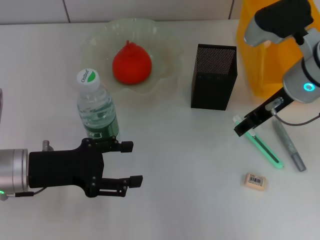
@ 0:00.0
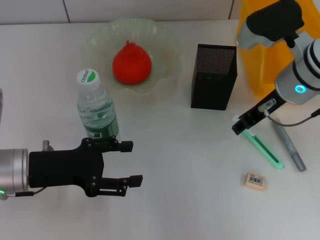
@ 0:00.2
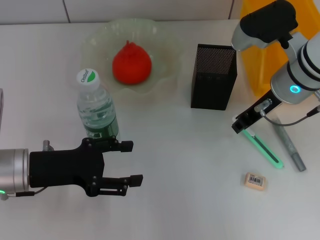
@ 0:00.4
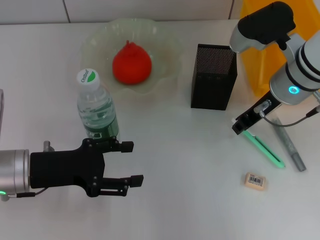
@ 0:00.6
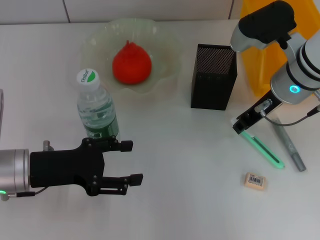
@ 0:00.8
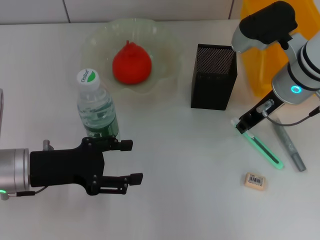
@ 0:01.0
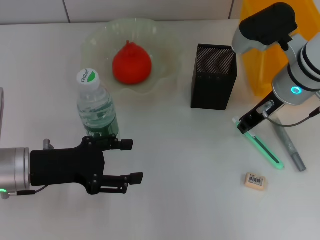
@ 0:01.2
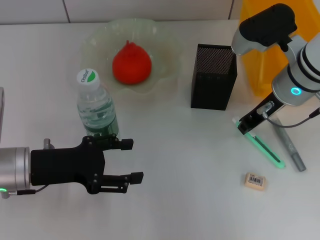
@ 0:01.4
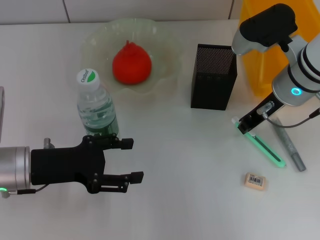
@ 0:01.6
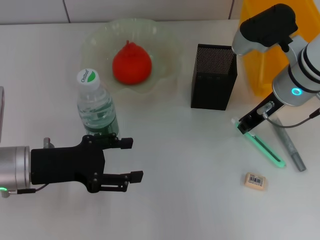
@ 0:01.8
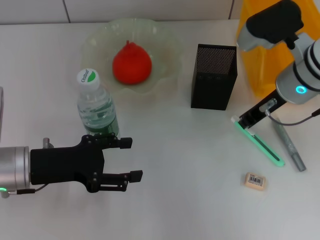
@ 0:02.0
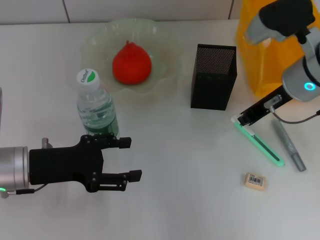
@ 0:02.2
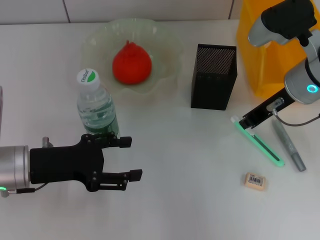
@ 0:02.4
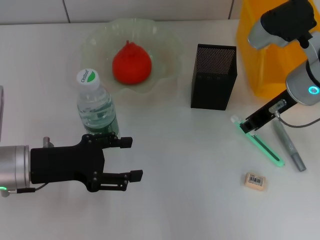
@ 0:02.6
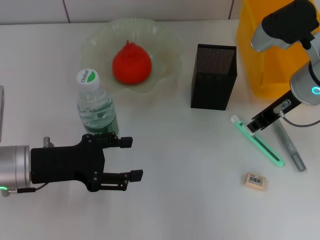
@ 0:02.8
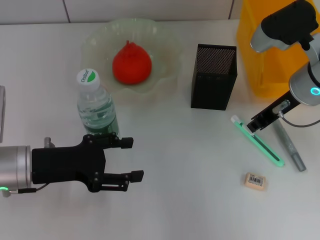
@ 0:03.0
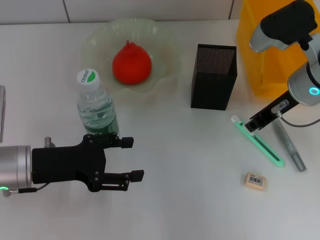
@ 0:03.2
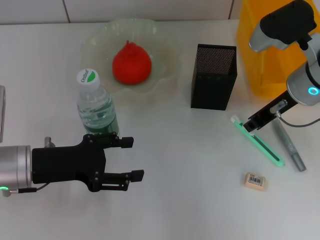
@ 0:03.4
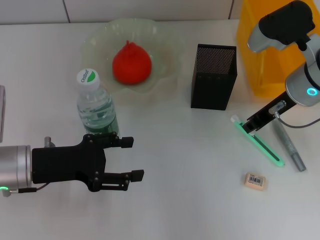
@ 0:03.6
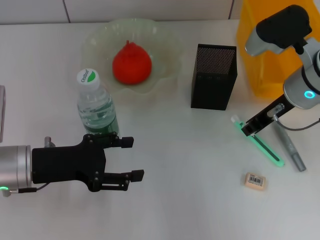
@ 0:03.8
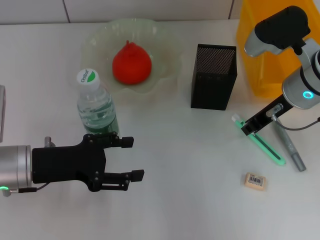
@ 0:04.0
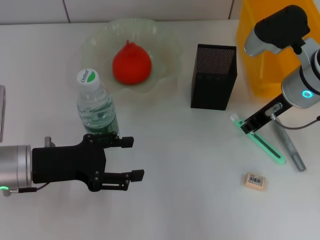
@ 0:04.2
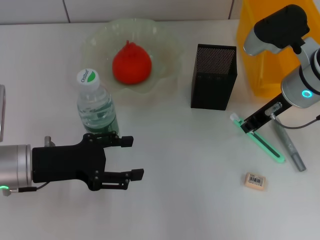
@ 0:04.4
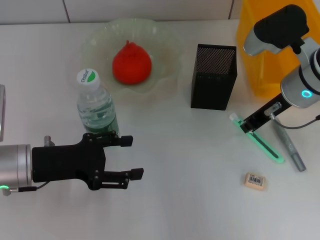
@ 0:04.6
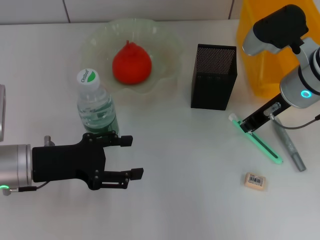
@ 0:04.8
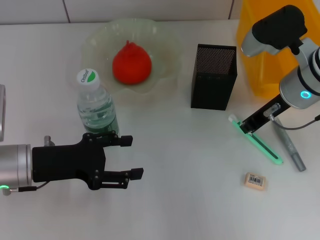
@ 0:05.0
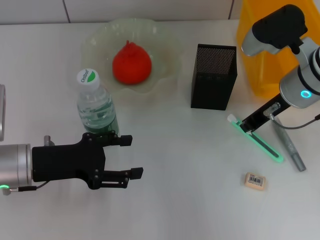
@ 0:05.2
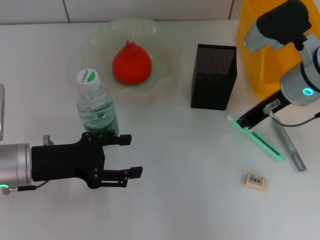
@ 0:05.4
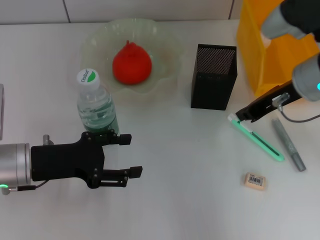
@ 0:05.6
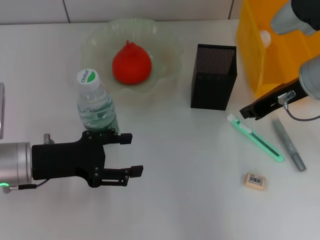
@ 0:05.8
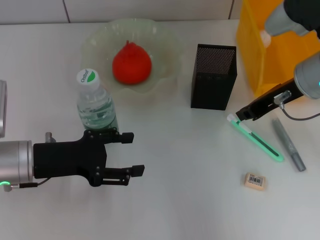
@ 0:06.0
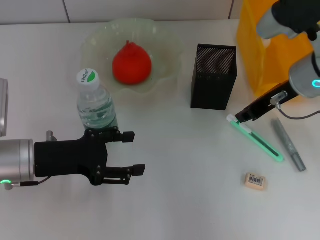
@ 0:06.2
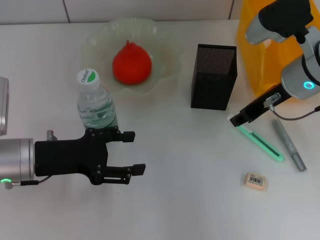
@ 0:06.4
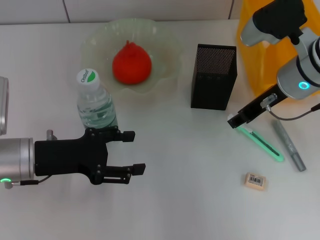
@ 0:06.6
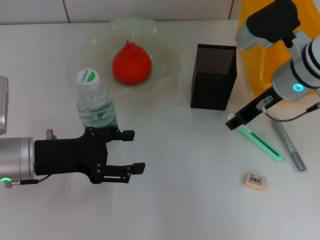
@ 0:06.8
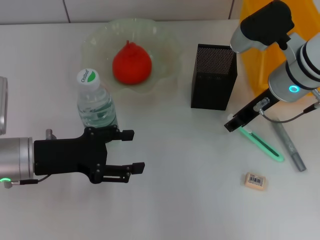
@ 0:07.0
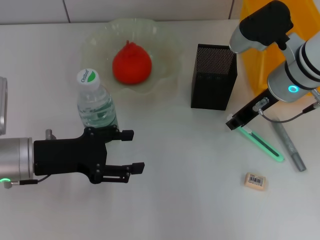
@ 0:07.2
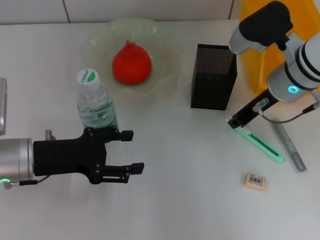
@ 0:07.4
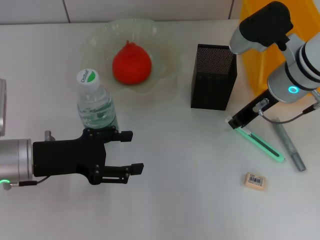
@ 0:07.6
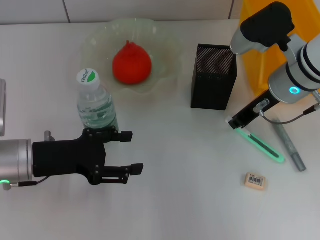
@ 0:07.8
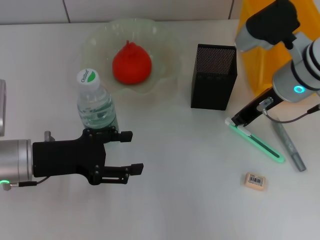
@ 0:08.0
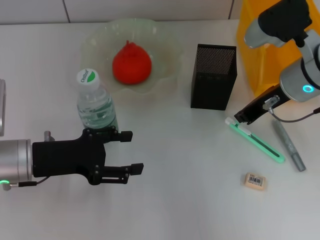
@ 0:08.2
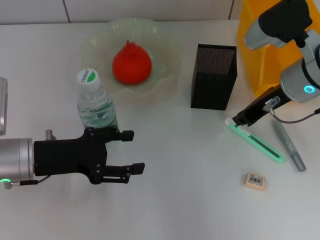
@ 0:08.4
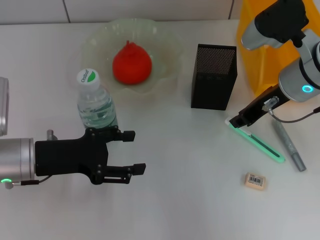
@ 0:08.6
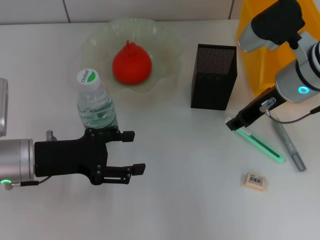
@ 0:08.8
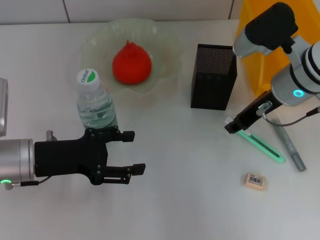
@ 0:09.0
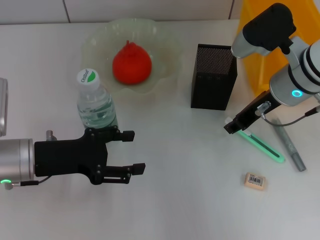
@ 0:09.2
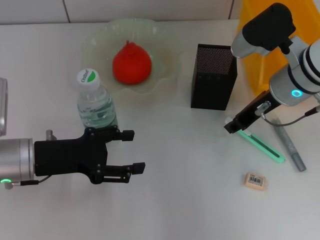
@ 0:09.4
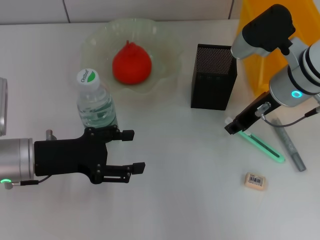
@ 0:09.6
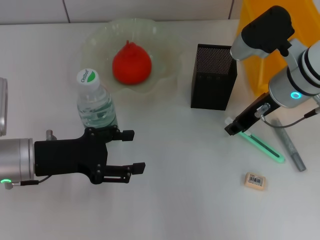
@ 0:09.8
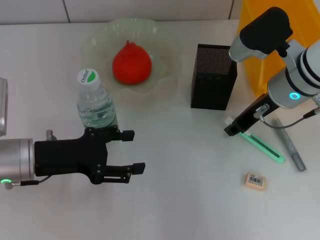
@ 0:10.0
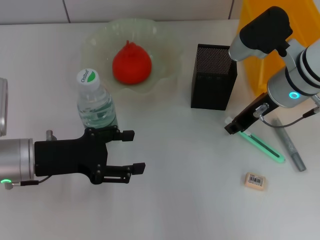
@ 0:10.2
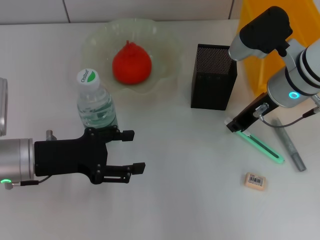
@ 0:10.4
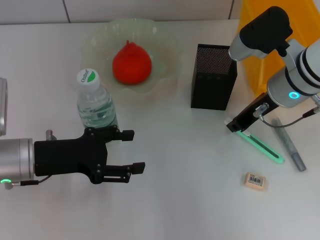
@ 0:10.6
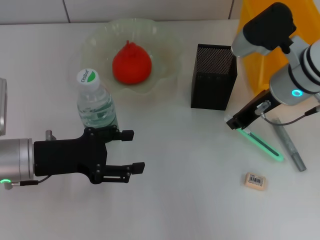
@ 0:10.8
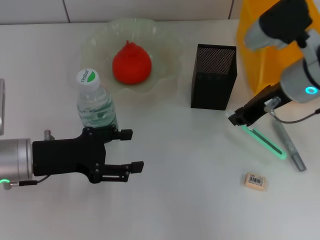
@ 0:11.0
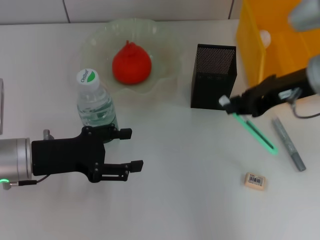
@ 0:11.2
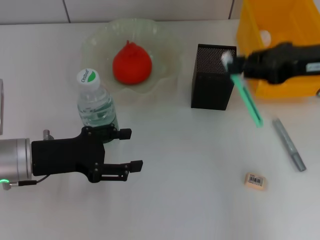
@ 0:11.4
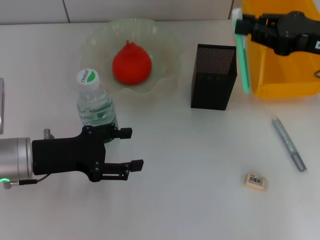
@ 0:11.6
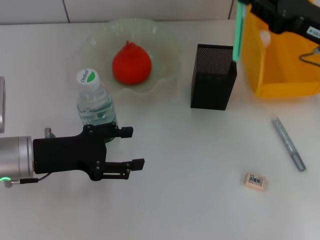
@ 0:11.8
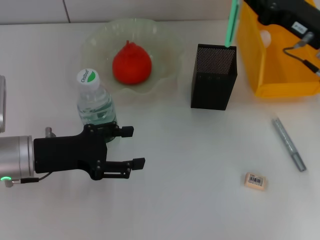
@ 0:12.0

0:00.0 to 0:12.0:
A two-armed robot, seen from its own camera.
Step, 0:00.0 to 0:10.4: Grab the blue utility knife with the right hand.
0:00.0 to 0:01.6: The right gripper closes.
0:01.6 to 0:03.0: There are only small adjustments of the grippers.
0:03.0 to 0:04.4: Both grippers stay put.
0:04.4 to 0:06.0: There are only small adjustments of the grippers.
0:06.0 to 0:07.6: The right gripper opens, then closes again.
0:07.6 to 0:09.0: The right gripper opens up.
0:09.0 to 0:10.4: Neither gripper changes place.
0:10.4 to 0:12.0: The right gripper shifts roughly 5 cm to the right.

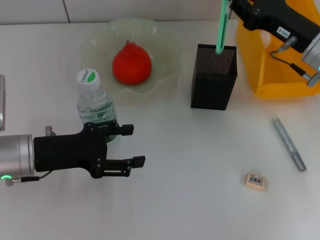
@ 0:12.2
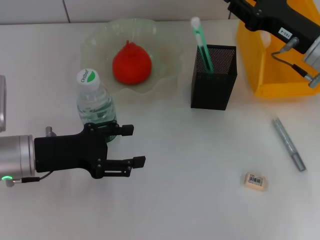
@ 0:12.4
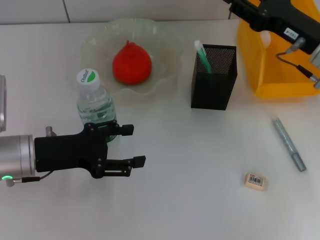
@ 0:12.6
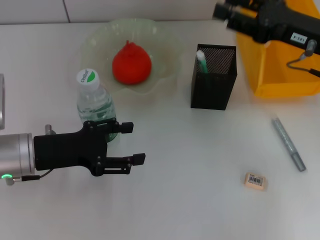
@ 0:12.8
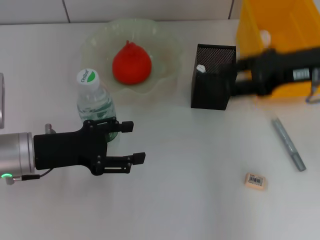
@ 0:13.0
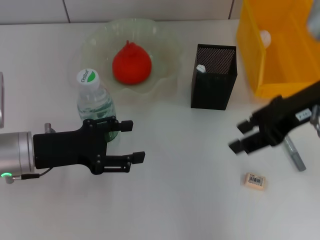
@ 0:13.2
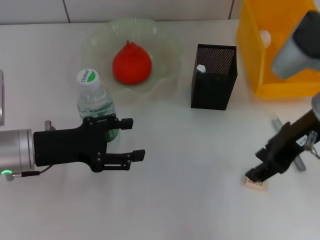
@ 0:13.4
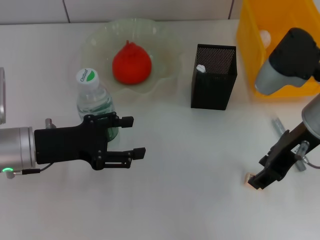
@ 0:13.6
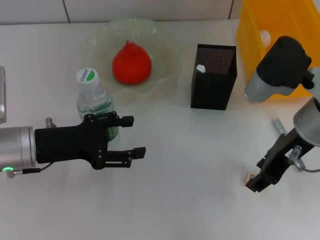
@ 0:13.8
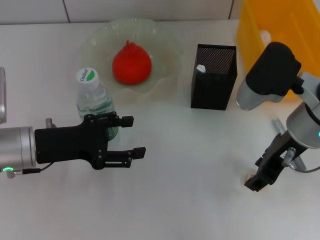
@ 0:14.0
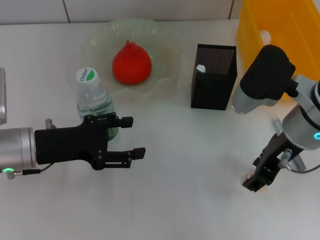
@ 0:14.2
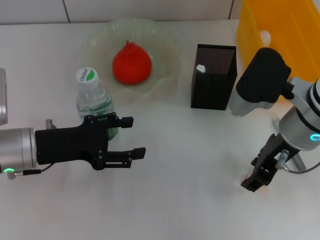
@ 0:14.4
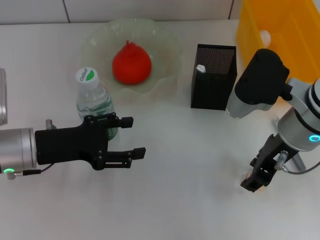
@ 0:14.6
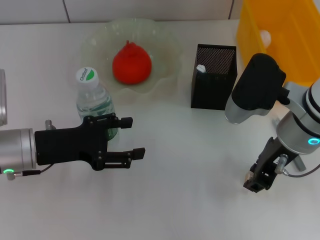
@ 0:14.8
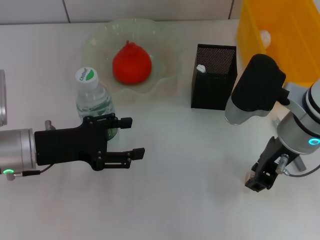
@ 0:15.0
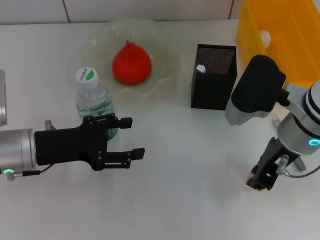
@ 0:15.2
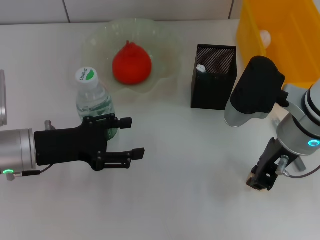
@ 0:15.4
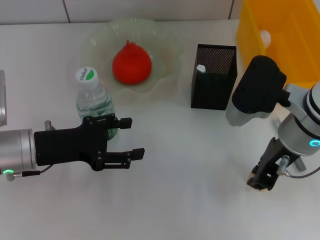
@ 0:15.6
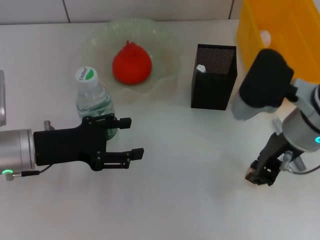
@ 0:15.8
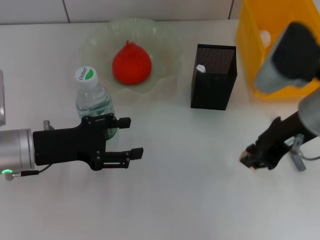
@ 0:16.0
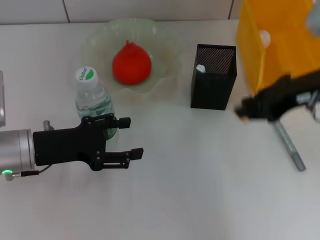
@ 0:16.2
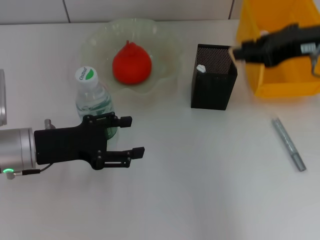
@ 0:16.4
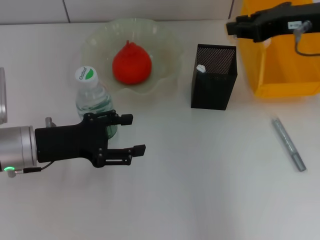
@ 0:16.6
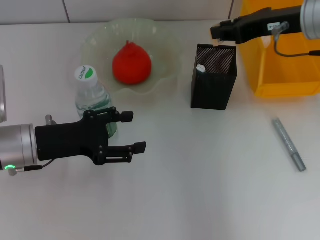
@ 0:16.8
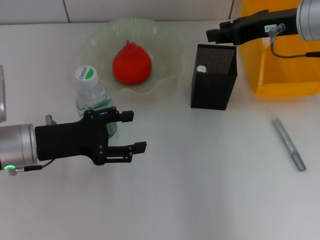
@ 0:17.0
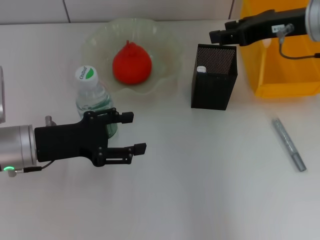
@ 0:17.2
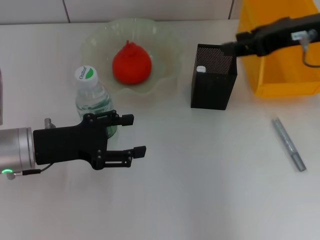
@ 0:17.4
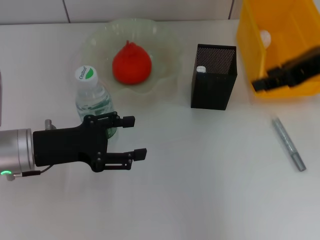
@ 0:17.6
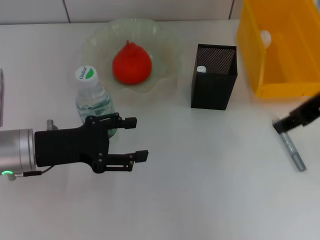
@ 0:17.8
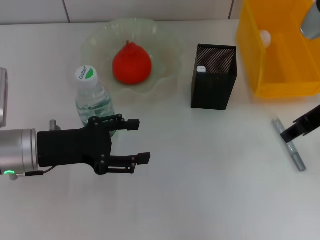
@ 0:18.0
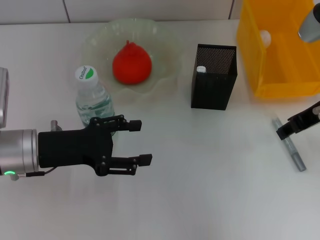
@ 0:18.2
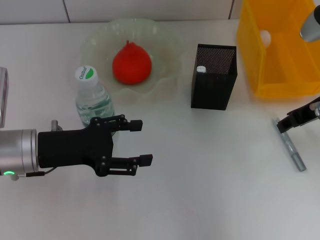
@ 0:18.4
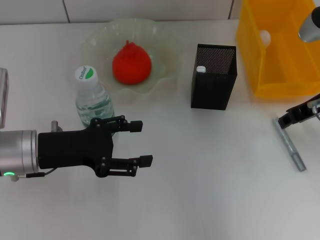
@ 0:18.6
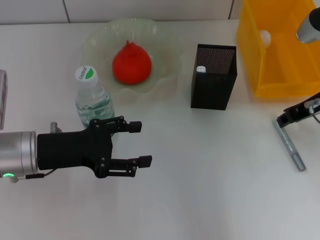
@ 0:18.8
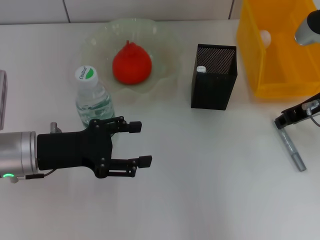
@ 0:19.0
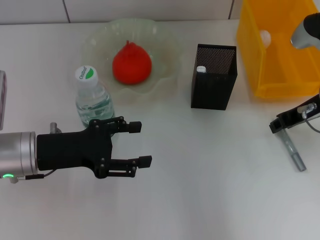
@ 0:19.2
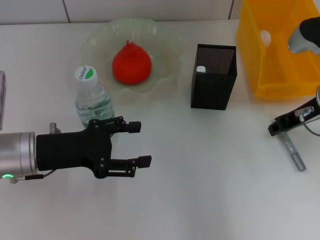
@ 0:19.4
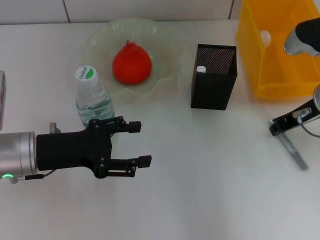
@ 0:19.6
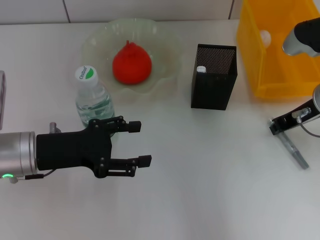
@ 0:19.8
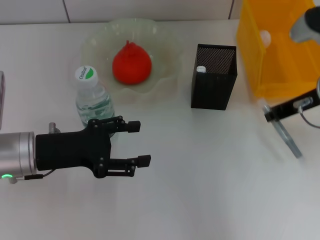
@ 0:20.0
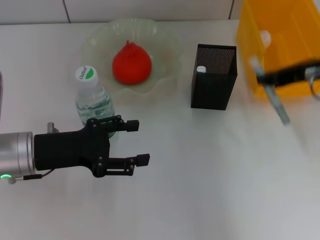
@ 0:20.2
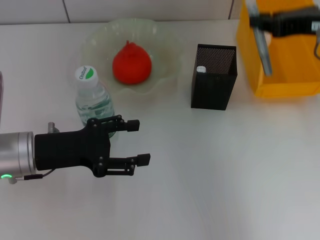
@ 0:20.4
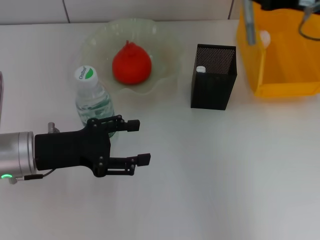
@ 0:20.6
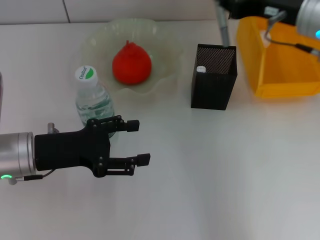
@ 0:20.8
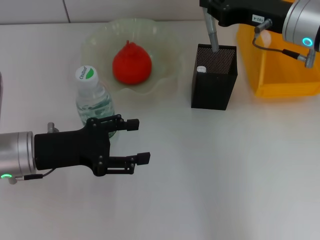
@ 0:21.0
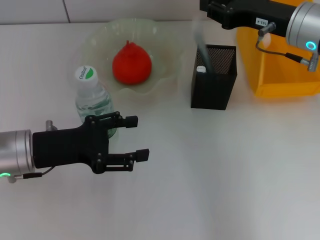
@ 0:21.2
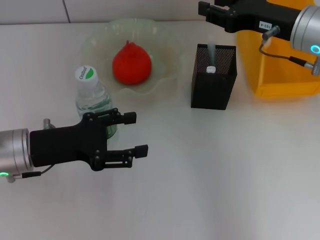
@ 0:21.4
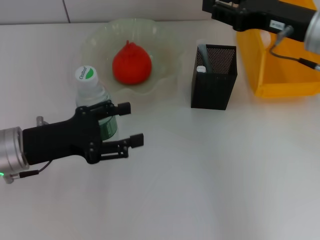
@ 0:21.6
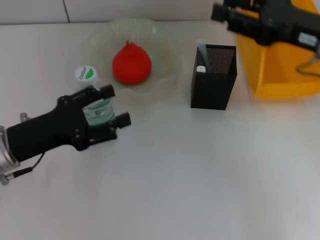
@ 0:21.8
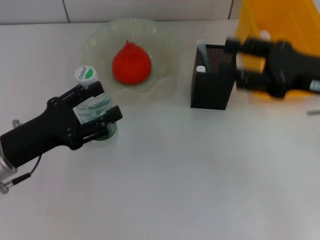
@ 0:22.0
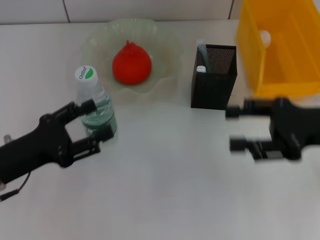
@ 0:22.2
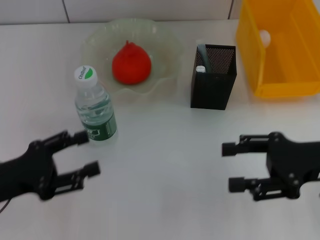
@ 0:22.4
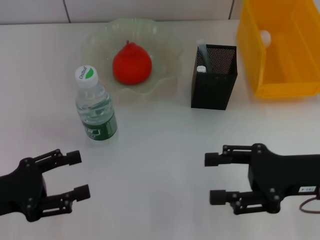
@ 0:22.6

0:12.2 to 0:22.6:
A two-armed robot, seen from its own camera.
Step, 0:12.6 to 0:15.2: Grab the eraser with the right hand.
Step, 0:15.6 to 0:17.0: Put the eraser into the pen holder with the right hand.
Step, 0:17.2 to 0:19.6: Grab the gray glue with the right hand.
Step, 0:19.8 to 0:21.4: Place the gray glue into the pen holder with the right hand.
0:12.2 to 0:13.6: The right gripper shifts some 5 cm backward, and opens its fingers.
0:13.6 to 0:15.2: The grippers stay close to where they were, moving slightly.
0:15.2 to 0:16.6: The right gripper heads upward, forward and to the right, covering roughly 10 cm.
0:16.6 to 0:18.2: The right gripper shifts by about 5 cm, and opens up.
0:18.2 to 0:19.6: The right gripper ends up about 5 cm from where it was.
0:21.2 to 0:22.6: The right gripper is displaced backward and downward by roughly 15 cm, and opens. The left gripper shifts roughly 10 cm backward and to the left.
